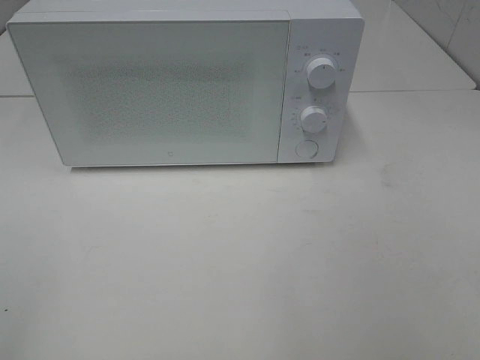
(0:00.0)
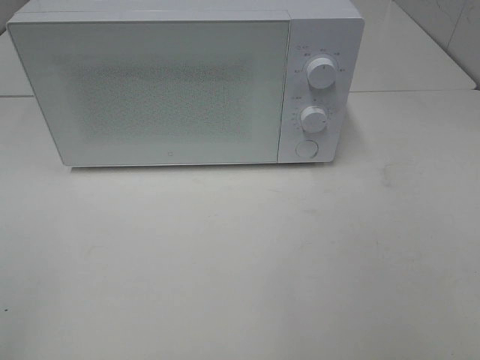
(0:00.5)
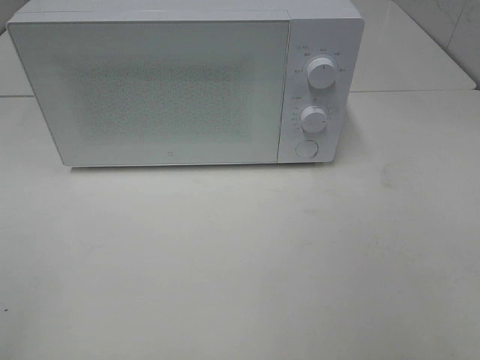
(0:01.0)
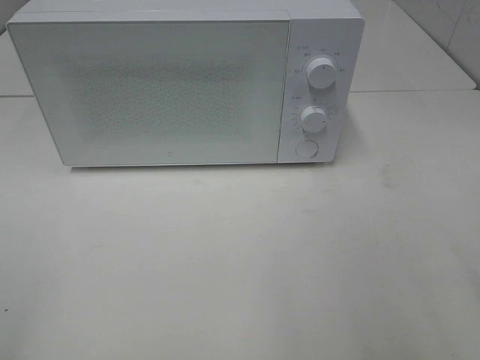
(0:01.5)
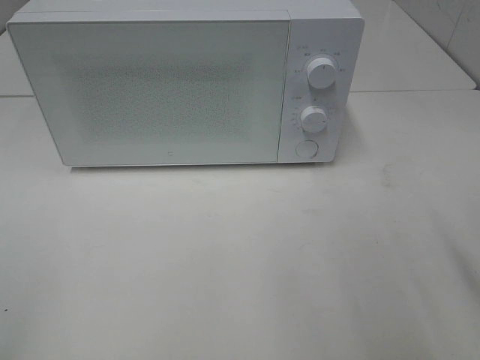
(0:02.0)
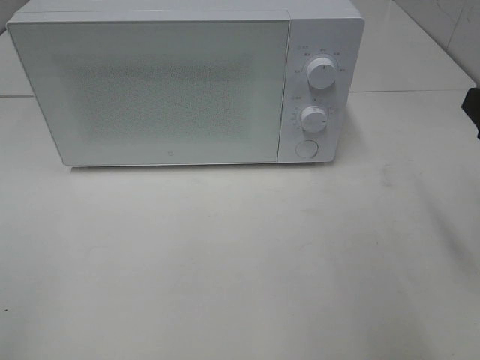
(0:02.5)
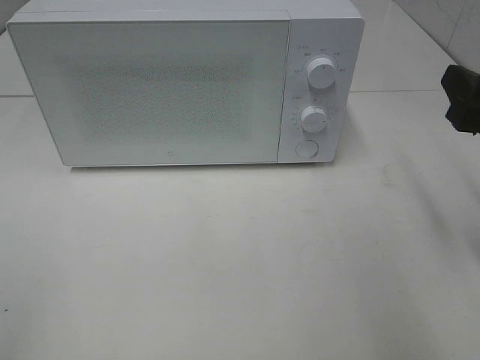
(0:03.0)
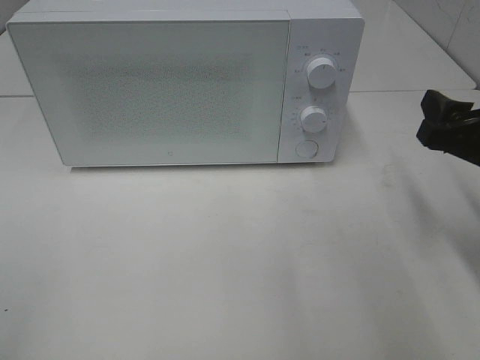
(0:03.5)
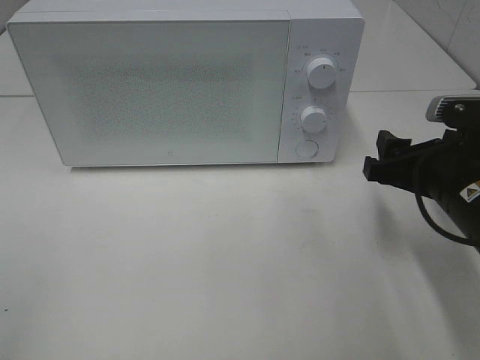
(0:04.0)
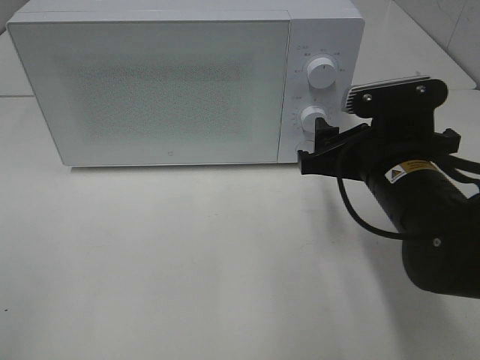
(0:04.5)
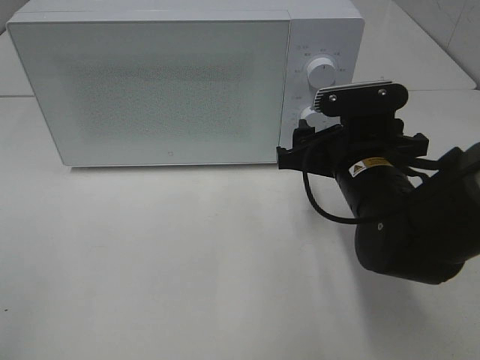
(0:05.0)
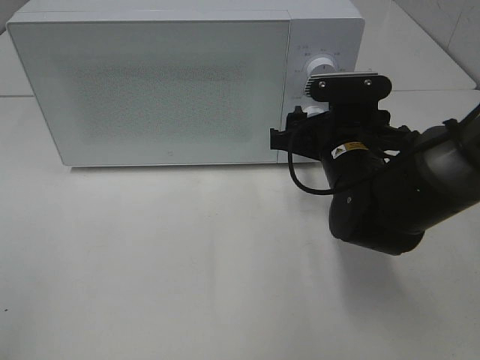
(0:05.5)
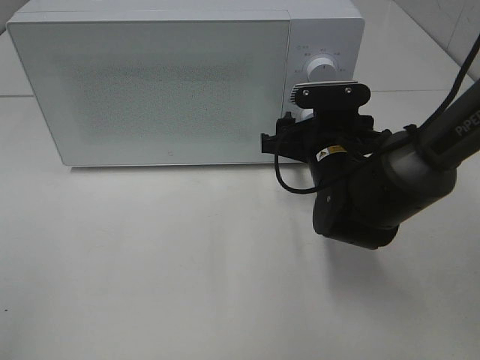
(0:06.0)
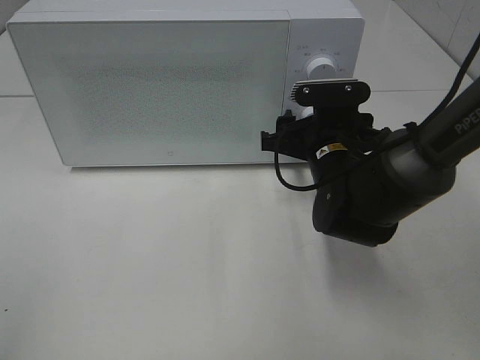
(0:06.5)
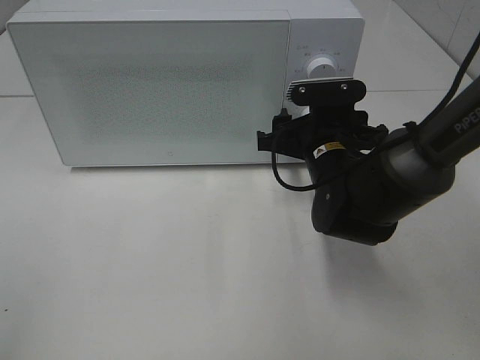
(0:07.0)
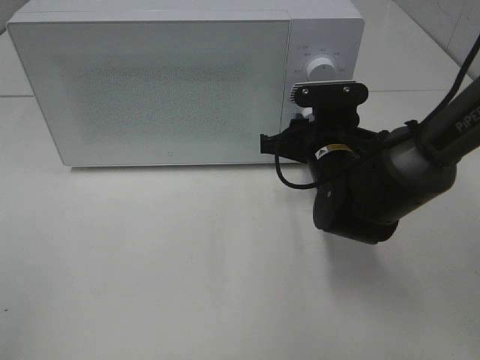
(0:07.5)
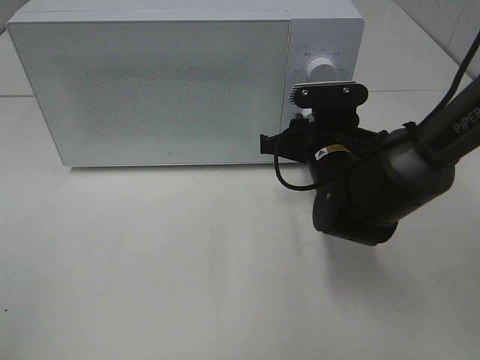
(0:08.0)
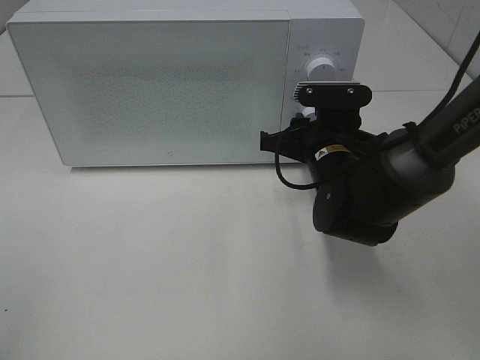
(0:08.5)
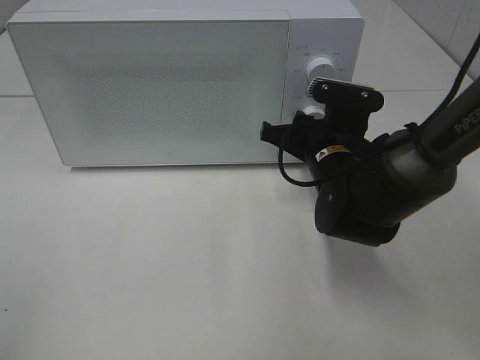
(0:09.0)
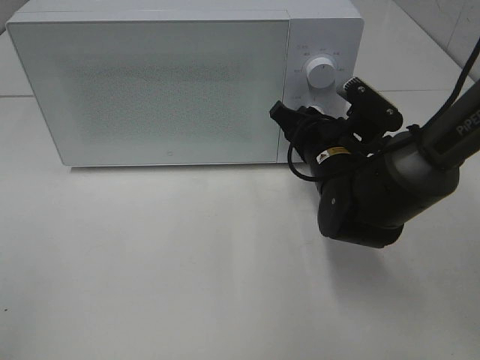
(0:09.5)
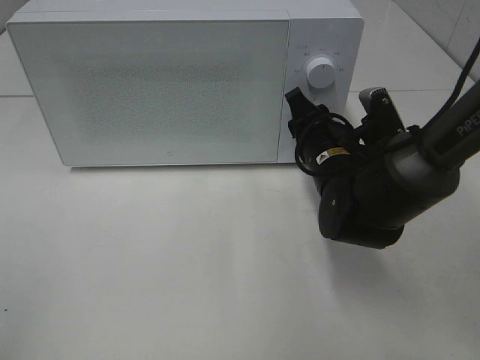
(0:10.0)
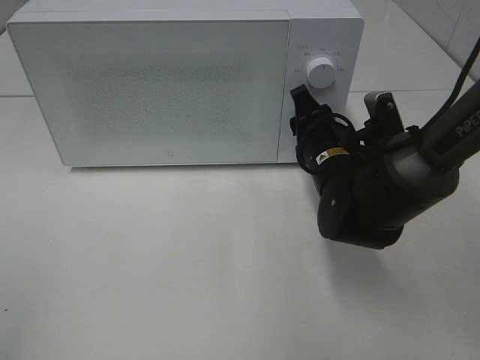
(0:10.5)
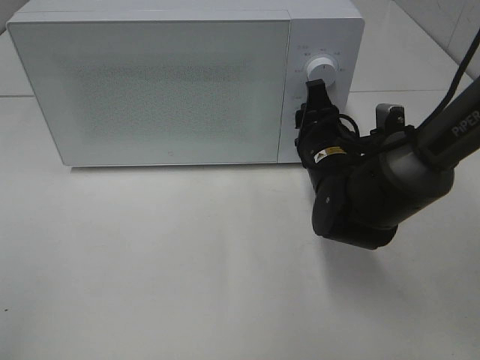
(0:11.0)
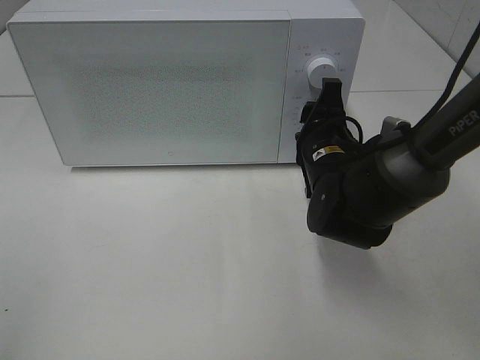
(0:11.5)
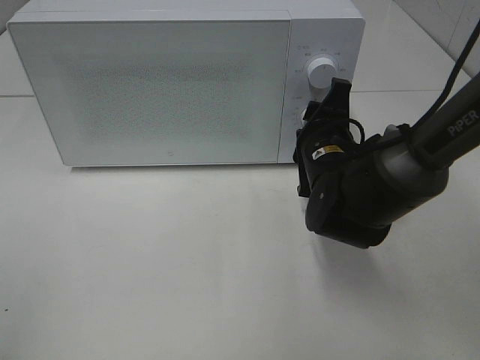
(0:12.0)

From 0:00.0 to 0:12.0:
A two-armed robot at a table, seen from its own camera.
Task of the whole recording: Heat the burger.
From 0:02.0 to 0:04.0: The right gripper heads forward, downward and to the left, covering about 15 cm.
From 0:04.0 to 0:06.0: The right gripper goes some 15 cm to the left and forward.
From 0:06.0 to 0:08.0: The right gripper closes.

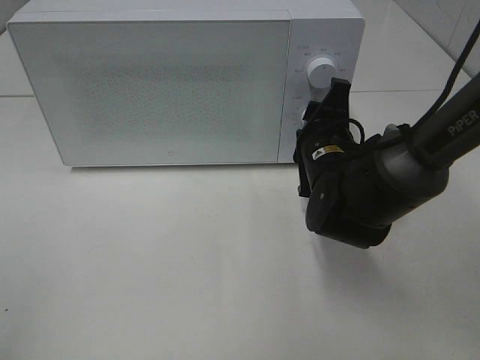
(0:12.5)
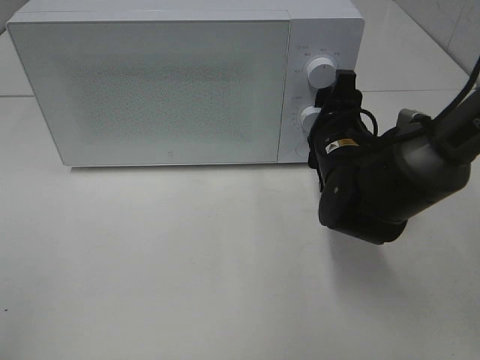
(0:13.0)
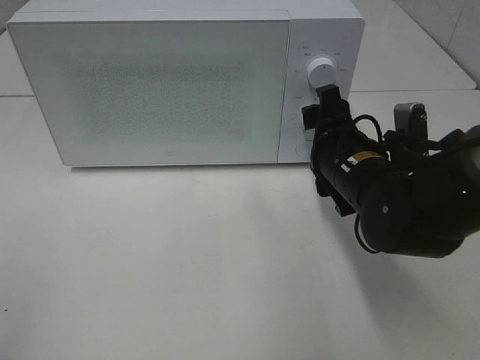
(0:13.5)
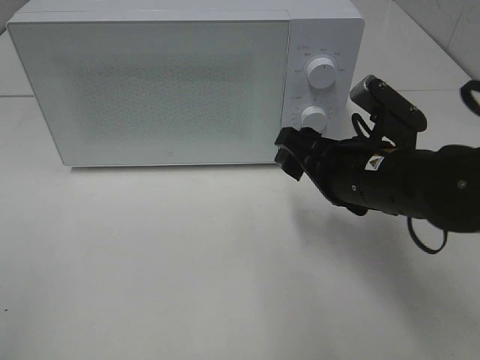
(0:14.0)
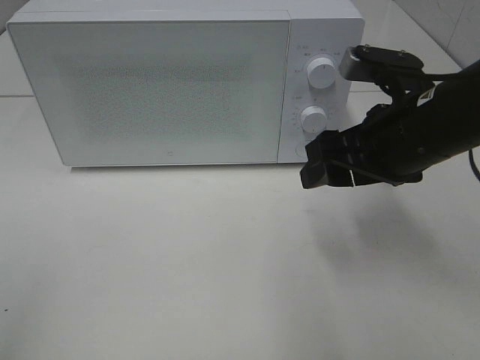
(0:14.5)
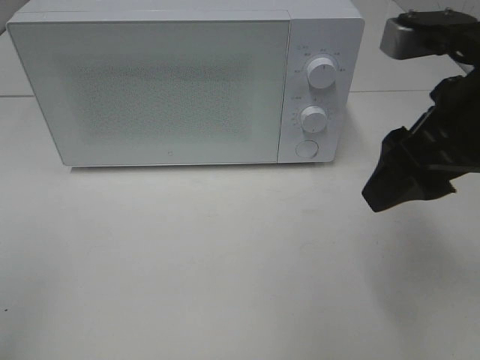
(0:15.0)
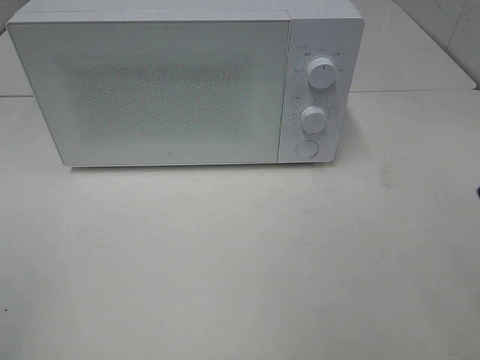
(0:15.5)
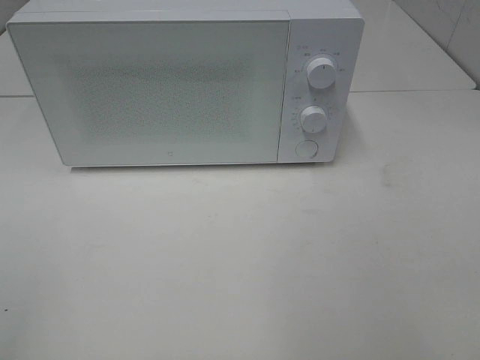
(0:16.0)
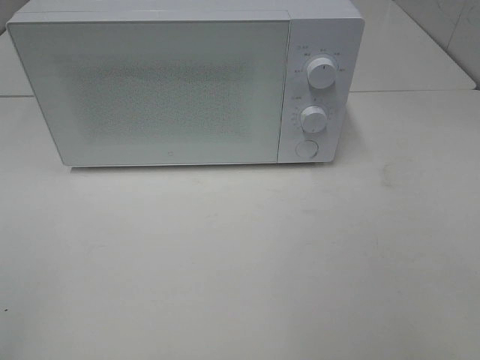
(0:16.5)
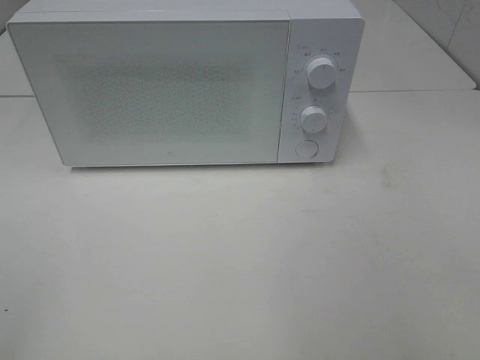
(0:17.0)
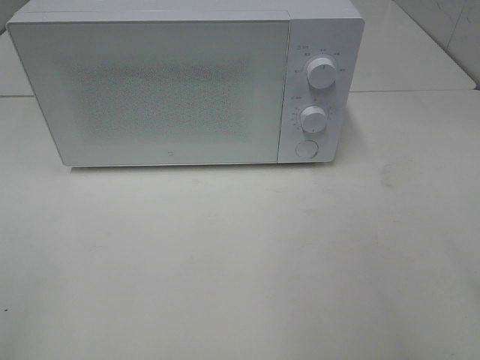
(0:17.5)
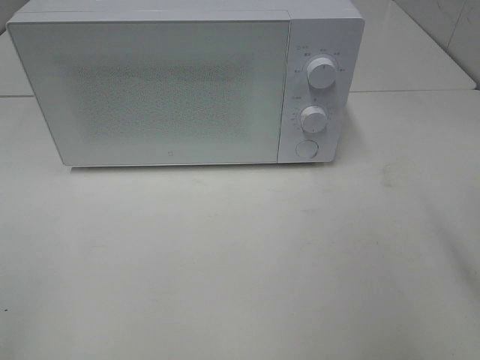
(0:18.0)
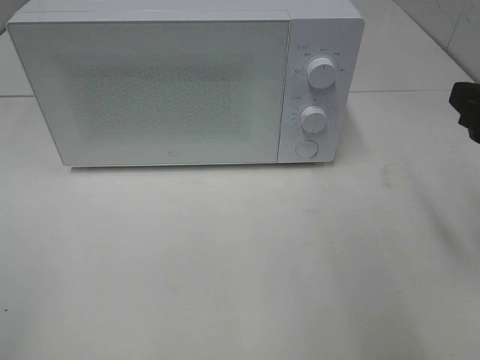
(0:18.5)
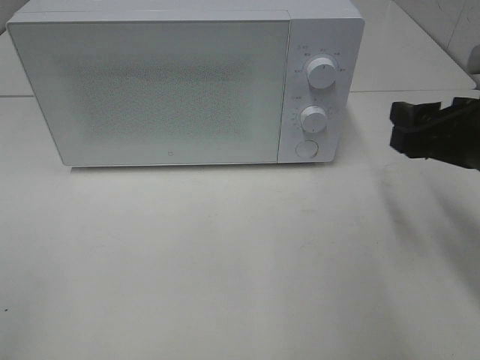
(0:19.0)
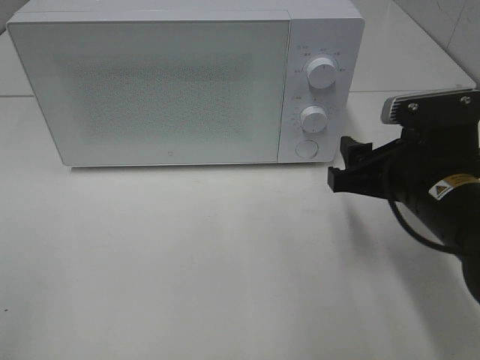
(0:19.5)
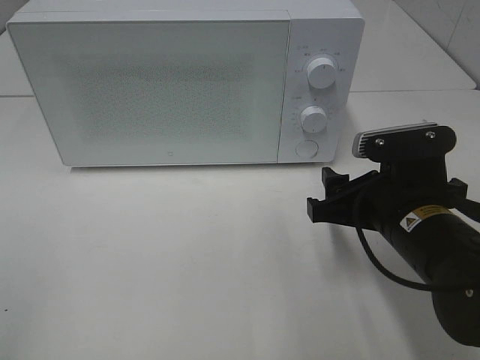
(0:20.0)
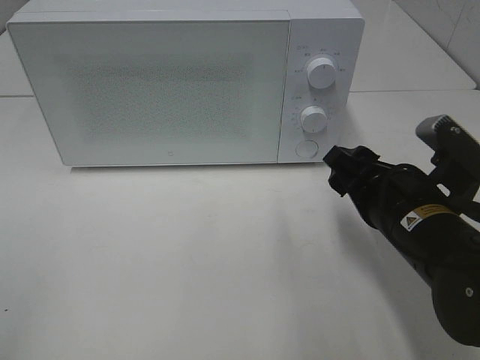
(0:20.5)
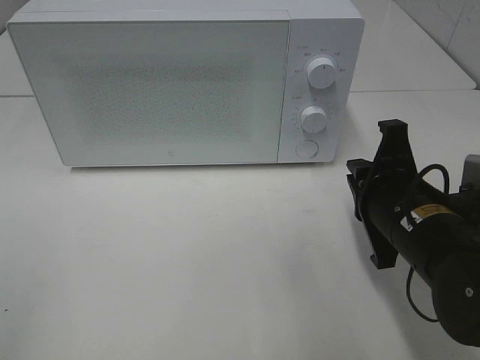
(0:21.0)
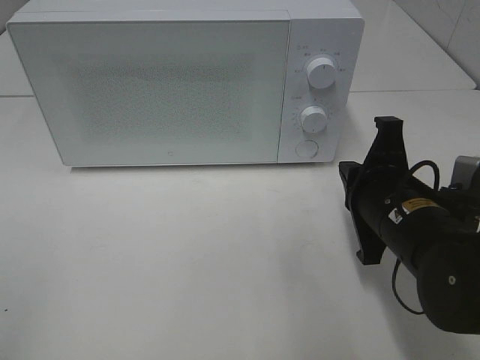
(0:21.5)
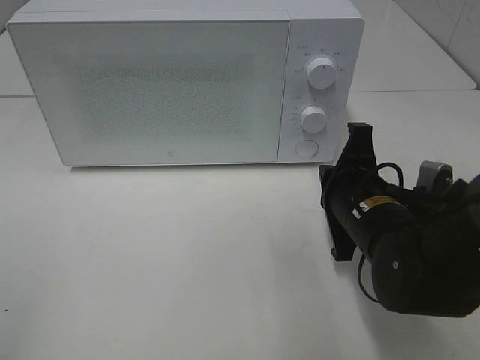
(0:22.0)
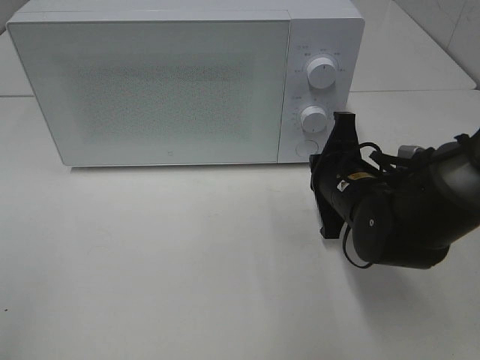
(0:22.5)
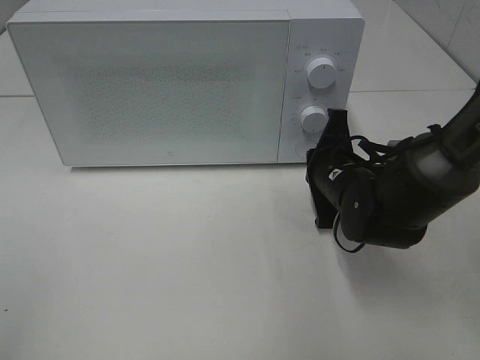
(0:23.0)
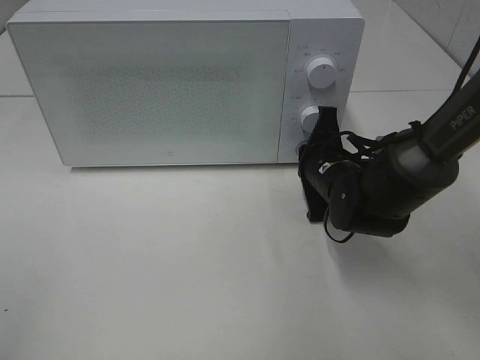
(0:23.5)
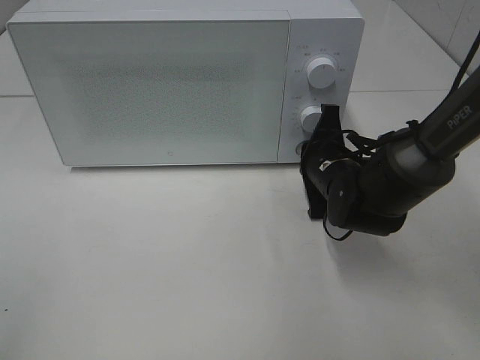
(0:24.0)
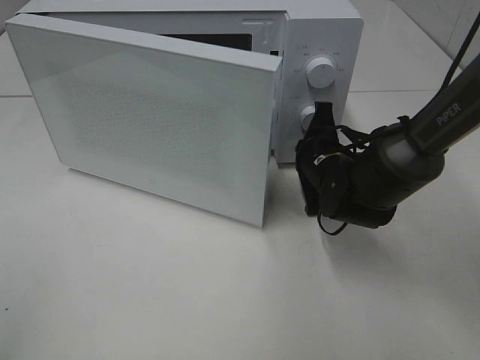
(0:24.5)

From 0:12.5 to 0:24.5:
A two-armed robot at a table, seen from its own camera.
Task of the whole recording: Heat the burger.
From 0:12.5 to 0:14.5: The right gripper heads upward and backward, covering some 10 cm.
From 0:14.5 to 0:16.5: The right gripper moves backward and to the right, roughly 30 cm.
From 0:16.5 to 0:18.5: The right gripper shifts roughly 20 cm forward.
From 0:18.5 to 0:20.5: The right gripper moves downward and to the left, some 15 cm.
From 0:20.5 to 0:22.5: The right gripper shifts some 10 cm forward, and closes.
From 0:22.5 to 0:24.5: The right gripper moves forward, approximately 5 cm.

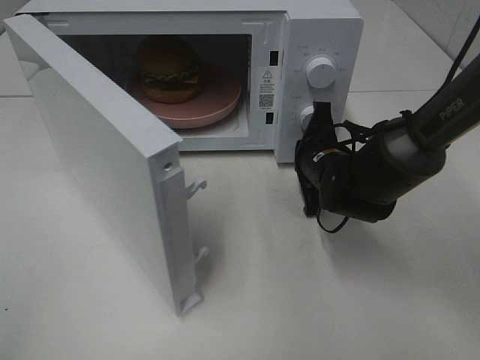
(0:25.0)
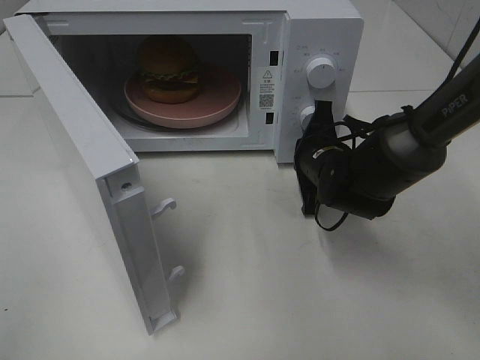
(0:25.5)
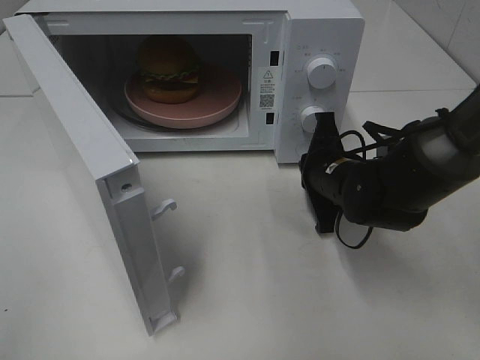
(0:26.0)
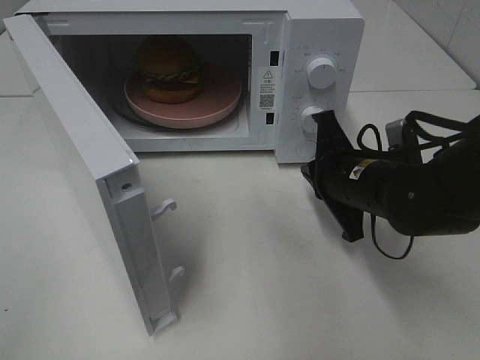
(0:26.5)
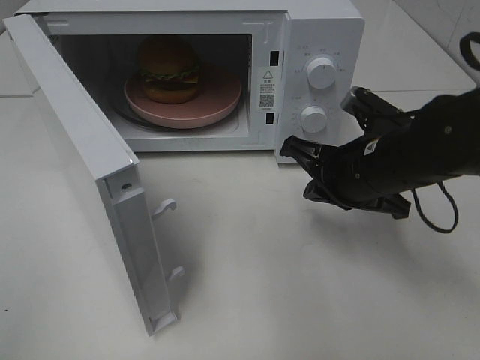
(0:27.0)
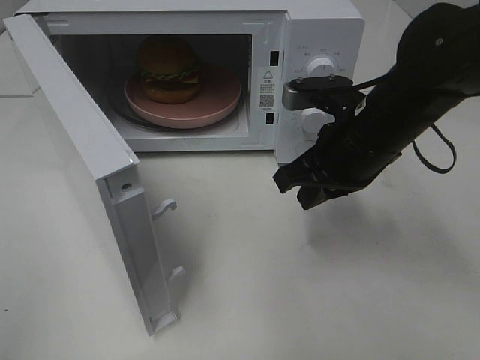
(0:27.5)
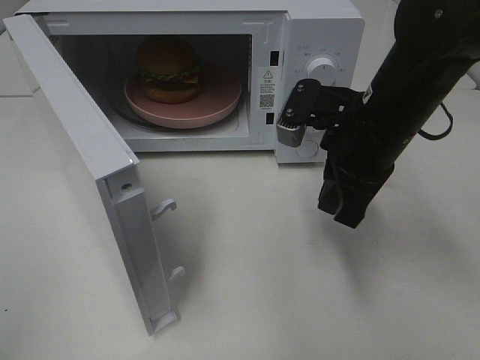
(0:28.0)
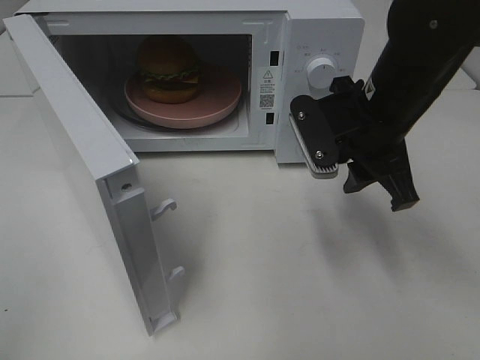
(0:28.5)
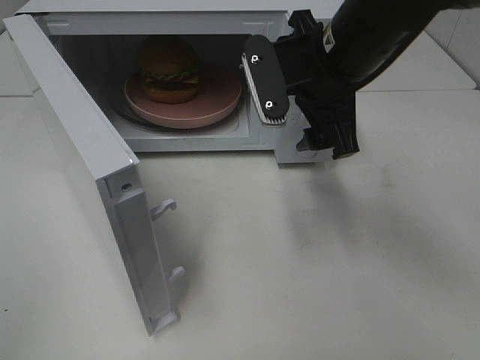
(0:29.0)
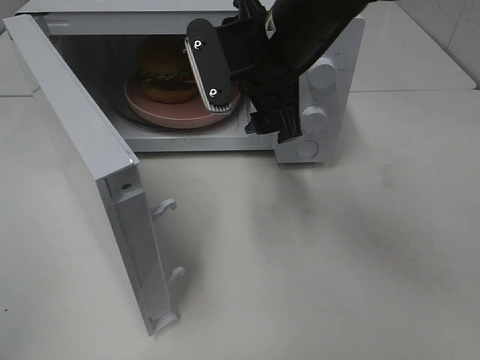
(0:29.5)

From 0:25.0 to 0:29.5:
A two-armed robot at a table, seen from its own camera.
Task of the whole recording: Heat the burger.
From 0:25.0 to 0:27.0: The right gripper moves backward and upward, about 10 cm.
From 0:27.0 to 0:29.5: The right gripper travels upward, to the left and forward by approximately 15 cm, and opens.
